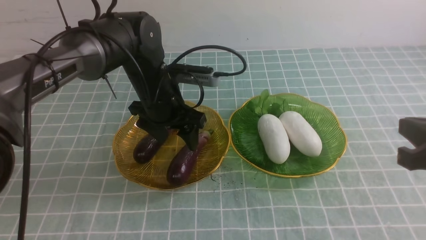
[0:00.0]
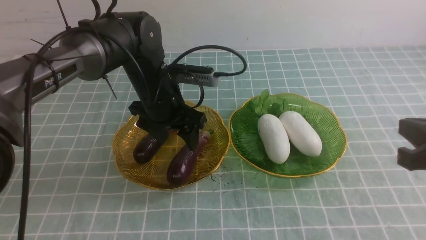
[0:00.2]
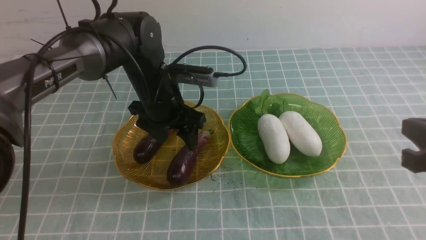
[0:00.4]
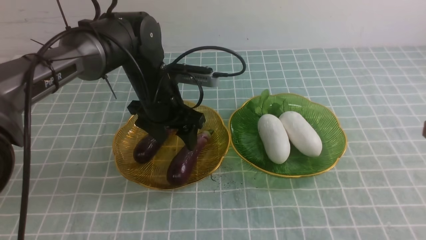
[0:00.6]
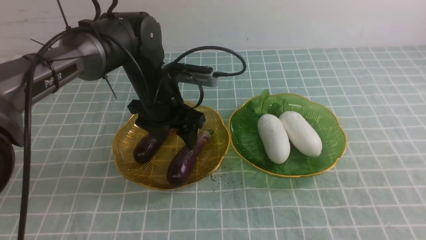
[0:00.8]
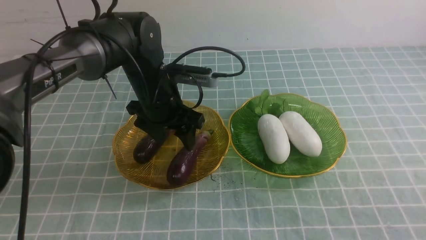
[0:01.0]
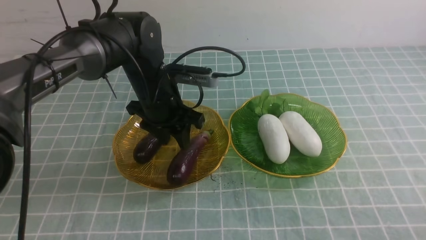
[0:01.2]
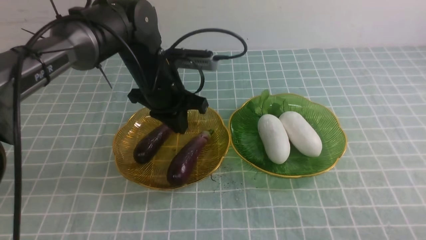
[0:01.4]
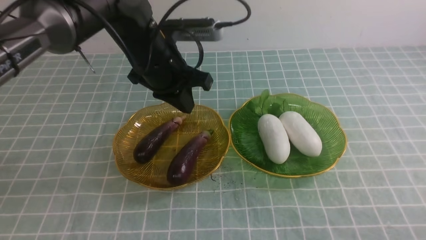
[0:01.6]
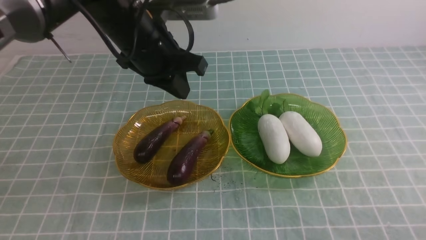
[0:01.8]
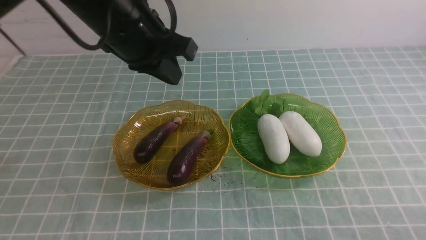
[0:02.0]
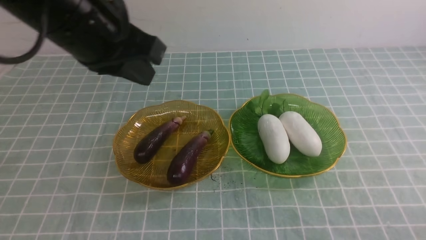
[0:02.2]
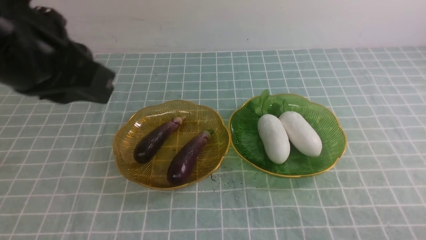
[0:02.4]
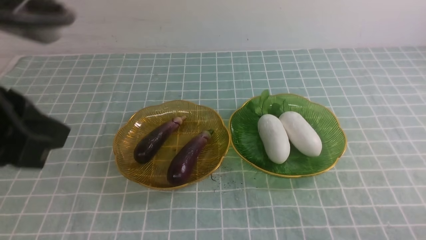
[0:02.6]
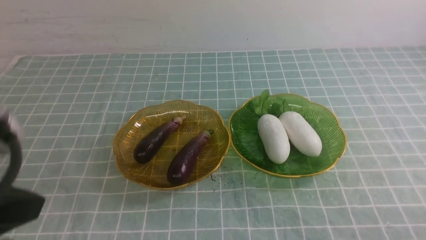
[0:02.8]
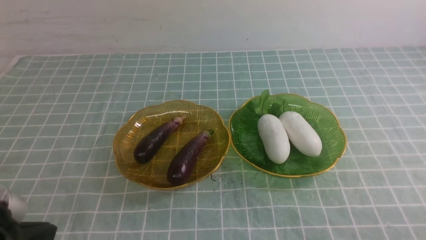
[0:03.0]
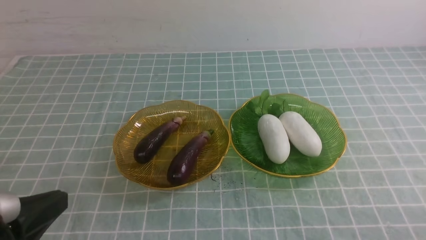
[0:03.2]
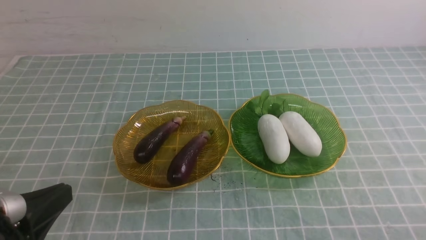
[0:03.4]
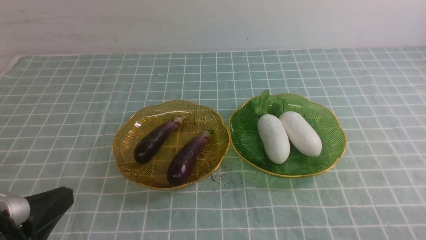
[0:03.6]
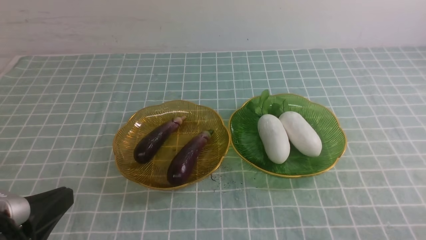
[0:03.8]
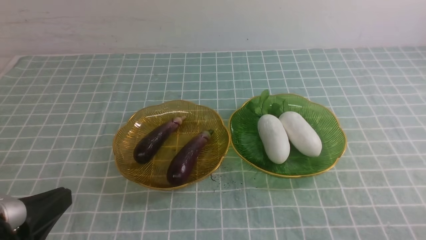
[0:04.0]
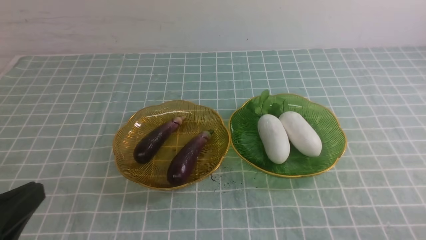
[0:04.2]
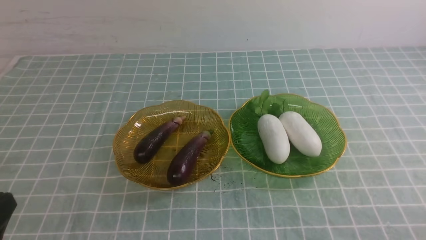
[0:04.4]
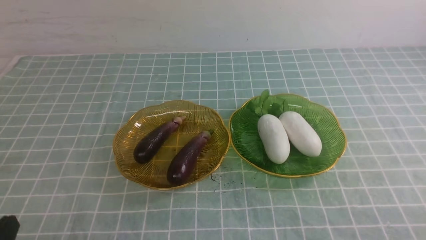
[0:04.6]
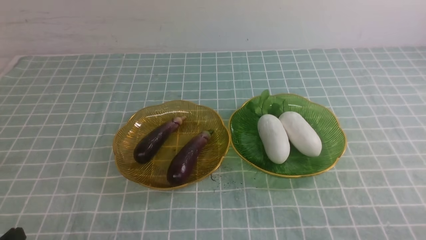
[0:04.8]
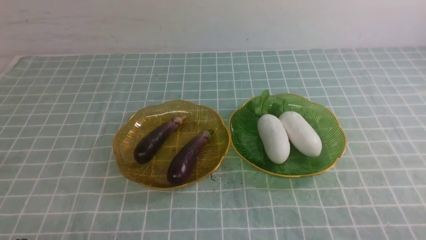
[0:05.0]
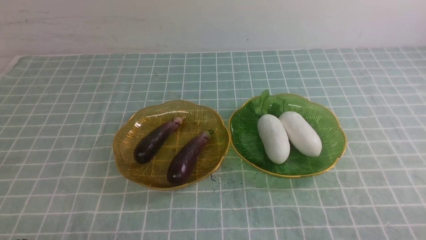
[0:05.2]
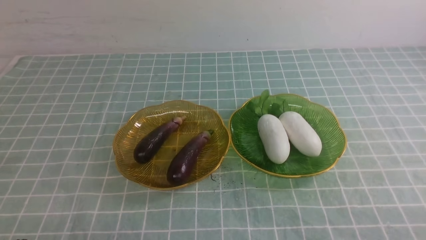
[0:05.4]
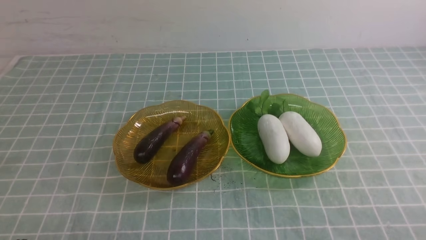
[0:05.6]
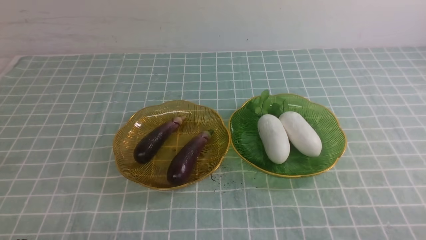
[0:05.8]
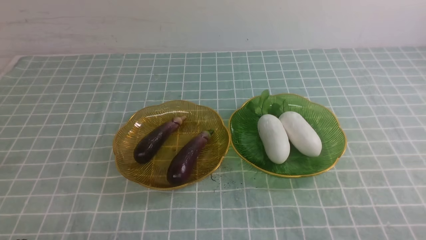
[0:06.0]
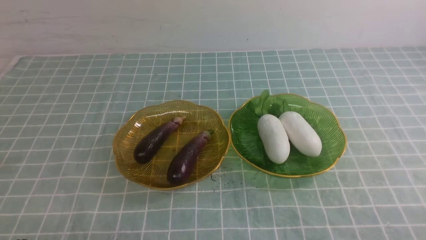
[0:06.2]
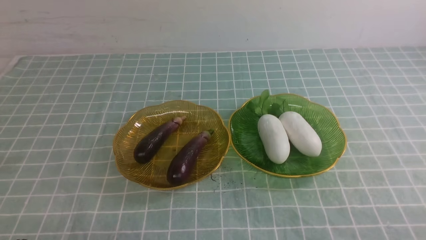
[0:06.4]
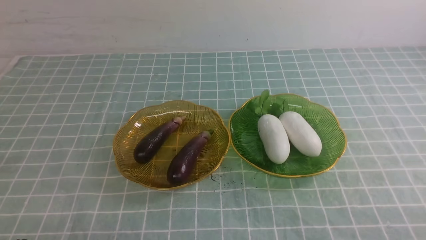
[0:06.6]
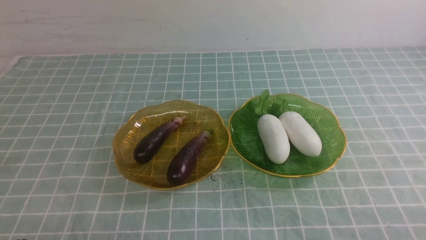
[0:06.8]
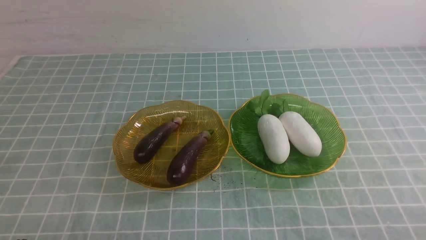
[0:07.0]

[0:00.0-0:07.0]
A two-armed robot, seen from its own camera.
0:00.0 to 0:01.4: The right gripper is displaced backward and downward by roughly 15 cm, while the left gripper closes up.
0:01.4 to 0:02.8: The left gripper heads backward and to the left, covering approximately 30 cm.
0:02.8 to 0:04.2: The left gripper moves downward, approximately 10 cm.
0:04.2 to 0:05.6: The left gripper travels downward by some 10 cm.
0:05.6 to 0:07.0: The two grippers keep their place.
